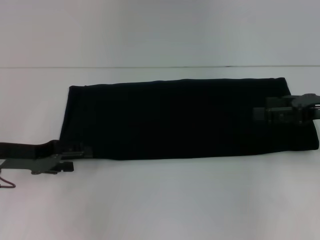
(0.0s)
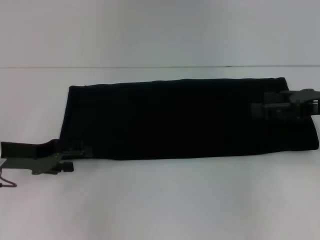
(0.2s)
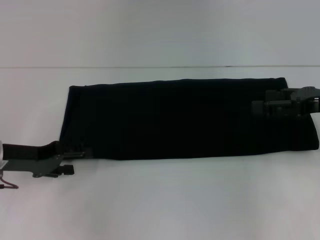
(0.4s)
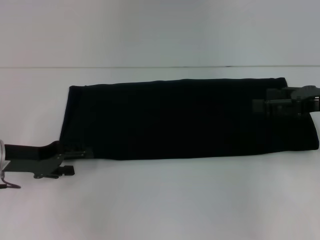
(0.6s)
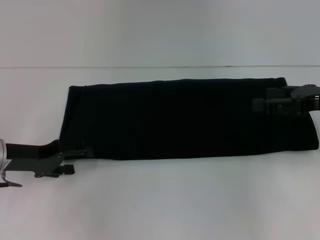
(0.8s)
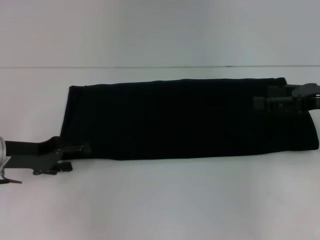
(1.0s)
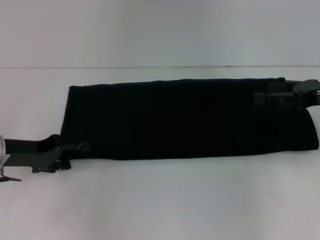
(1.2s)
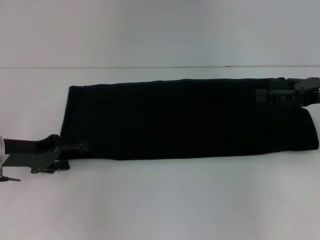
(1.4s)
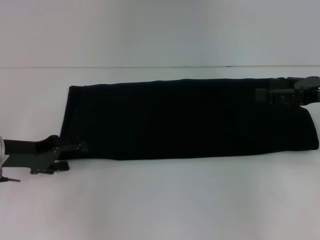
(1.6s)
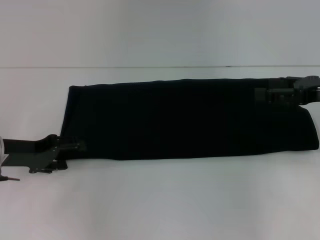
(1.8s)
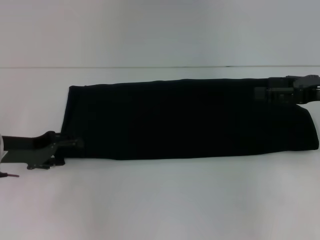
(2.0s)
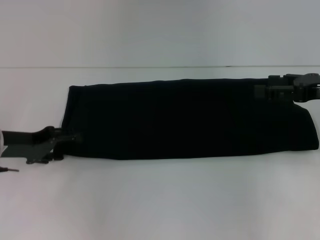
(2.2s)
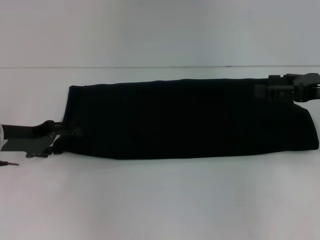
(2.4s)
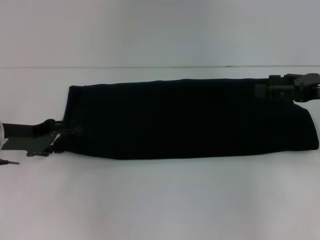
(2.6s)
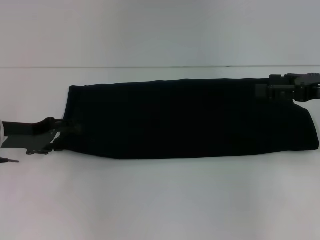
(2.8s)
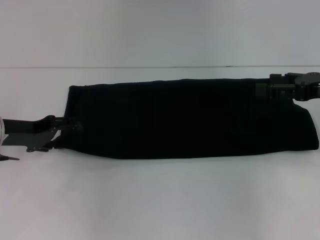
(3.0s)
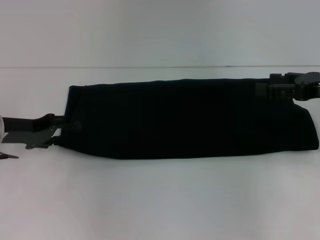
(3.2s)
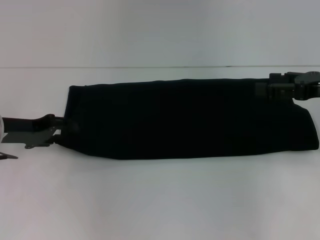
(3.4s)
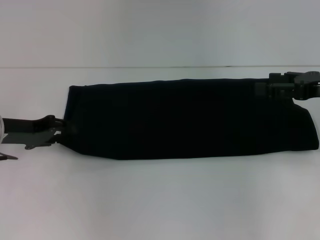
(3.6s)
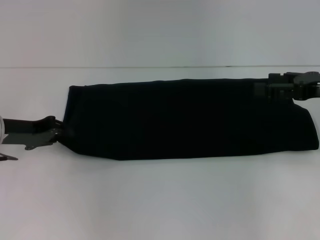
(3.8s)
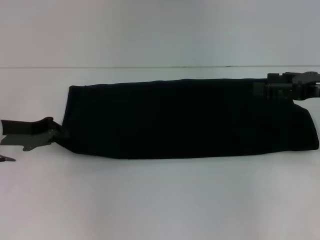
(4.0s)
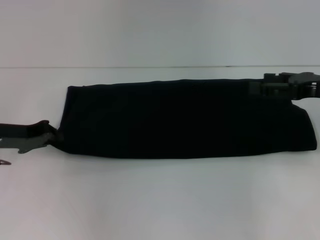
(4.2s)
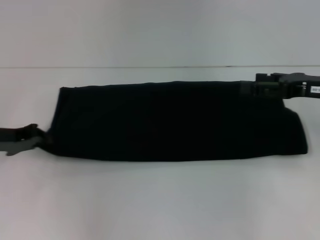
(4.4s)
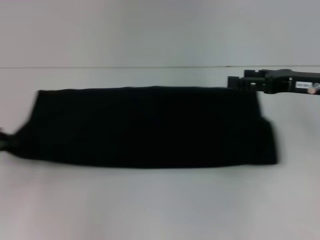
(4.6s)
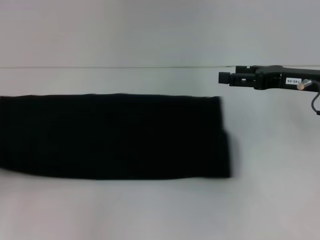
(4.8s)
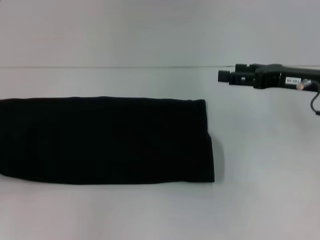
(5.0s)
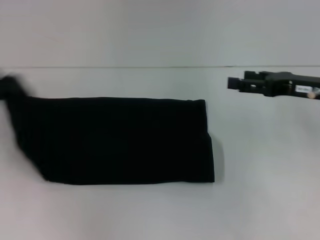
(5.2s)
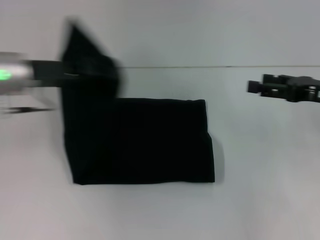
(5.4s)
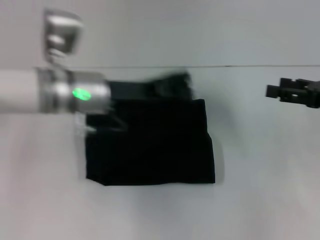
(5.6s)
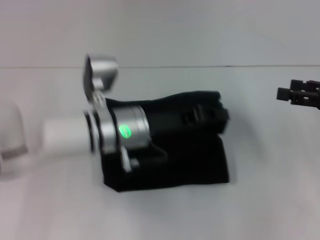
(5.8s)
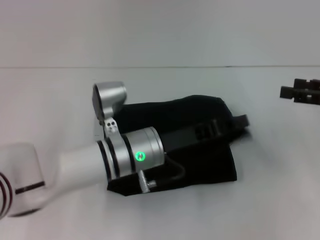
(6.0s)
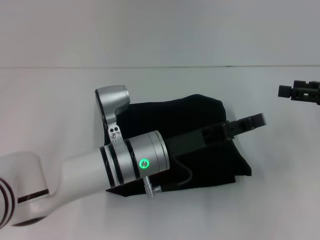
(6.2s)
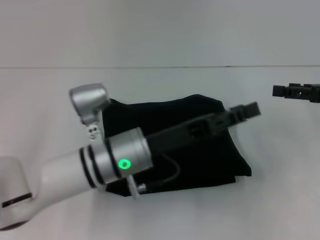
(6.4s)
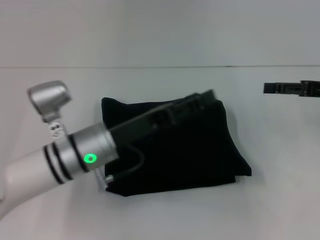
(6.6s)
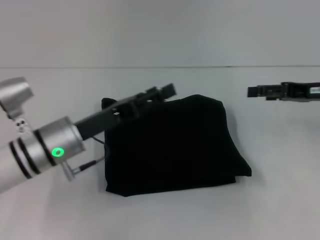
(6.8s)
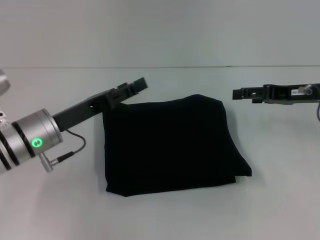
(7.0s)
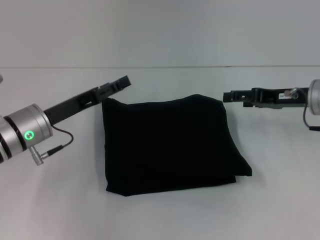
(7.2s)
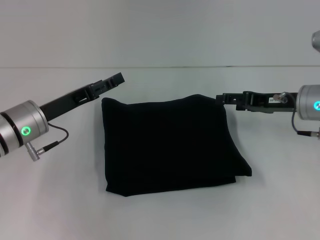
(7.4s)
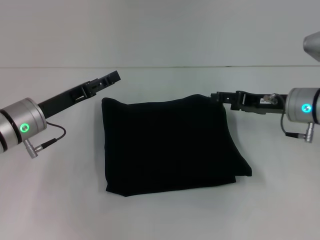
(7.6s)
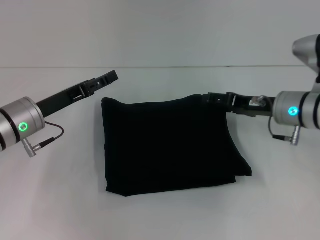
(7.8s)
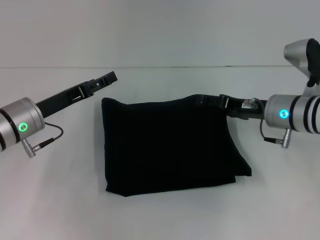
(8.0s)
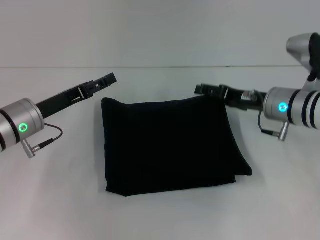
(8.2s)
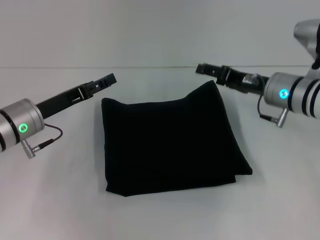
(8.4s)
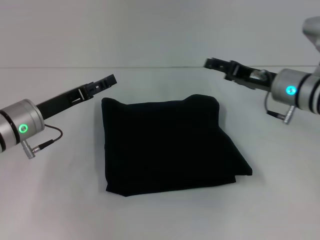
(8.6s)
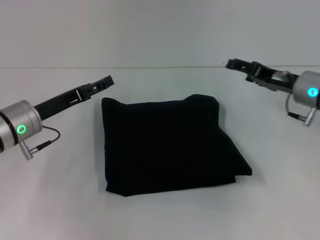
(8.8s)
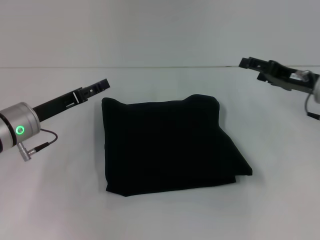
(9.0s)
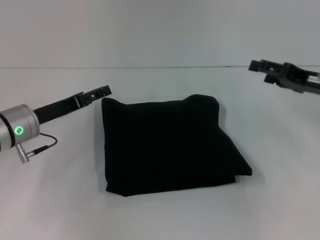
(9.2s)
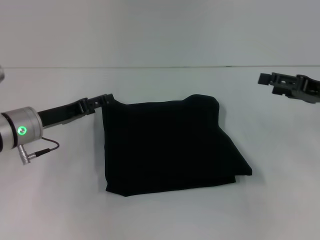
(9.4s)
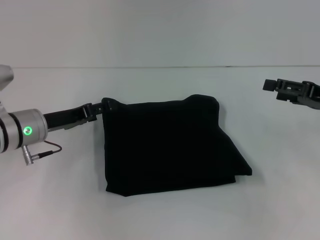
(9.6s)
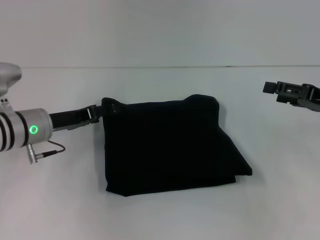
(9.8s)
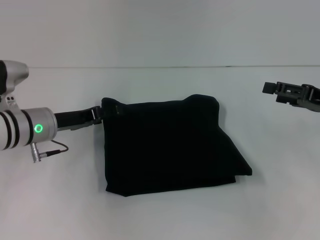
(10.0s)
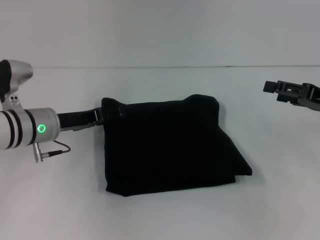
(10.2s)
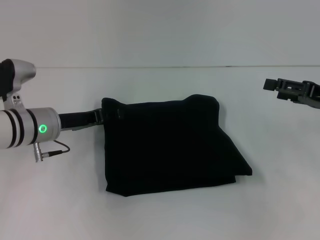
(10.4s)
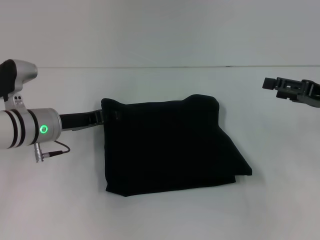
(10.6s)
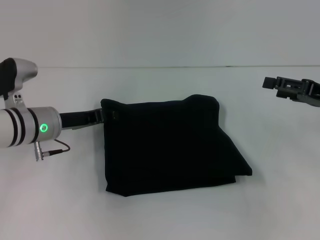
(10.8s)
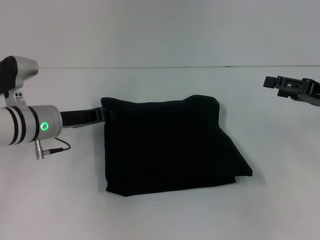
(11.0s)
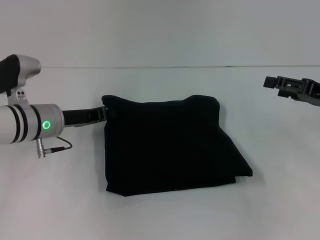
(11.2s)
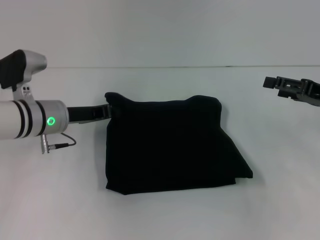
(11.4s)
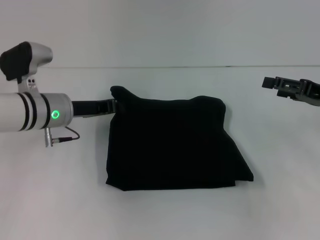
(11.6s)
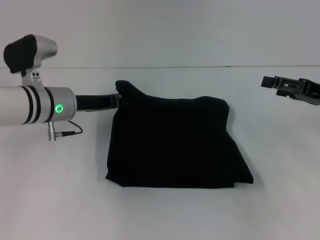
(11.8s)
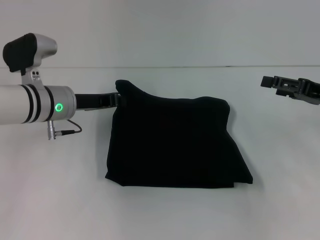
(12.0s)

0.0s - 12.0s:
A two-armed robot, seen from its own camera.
Step, 0.0s - 6.0s: Fold the clothes with your left hand.
0.0s - 3.0s: The grippers make only small movements.
3.0s - 4.4s: The left gripper closes its fingers.
4.4s - 6.0s: The right gripper heads to the right, covering roughly 5 cm; the left gripper moves to the right, approximately 25 cm.
6.0s - 7.6s: The right gripper moves to the left, forward and downward, approximately 15 cm, while the left gripper heads to the left, covering approximately 15 cm, and opens up.
7.6s - 9.0s: The grippers move only a little.
9.0s - 10.4s: The right gripper travels to the right by roughly 5 cm.
10.4s - 12.0s: The left gripper closes.

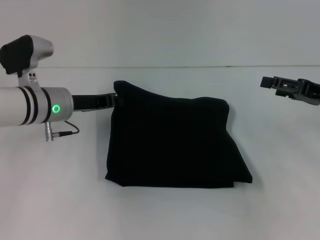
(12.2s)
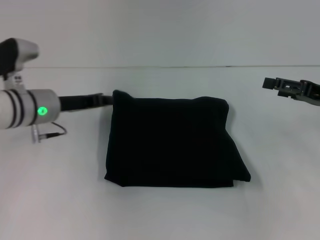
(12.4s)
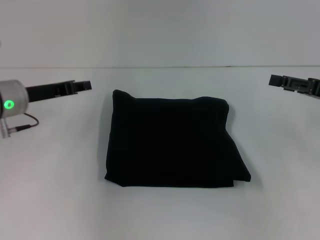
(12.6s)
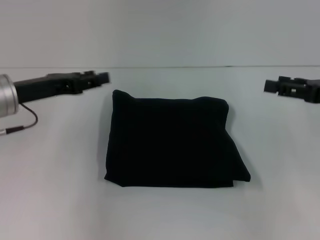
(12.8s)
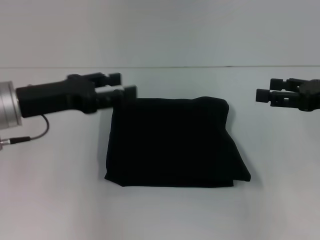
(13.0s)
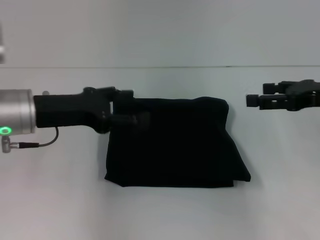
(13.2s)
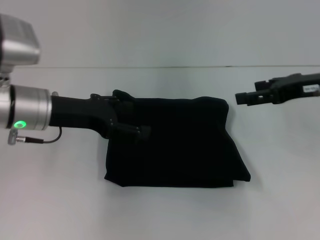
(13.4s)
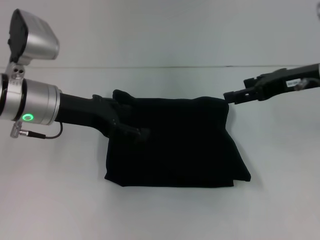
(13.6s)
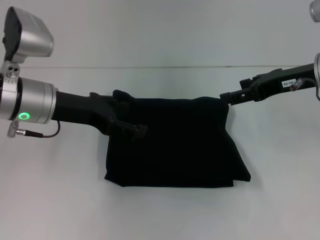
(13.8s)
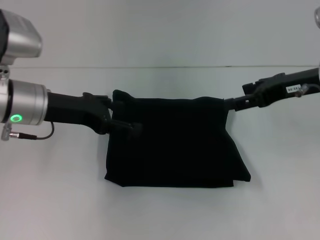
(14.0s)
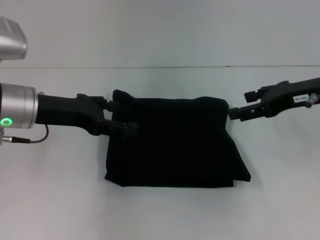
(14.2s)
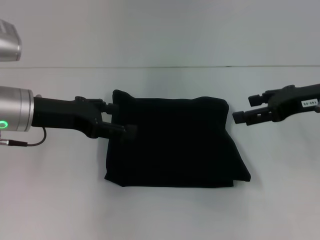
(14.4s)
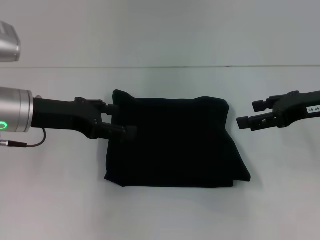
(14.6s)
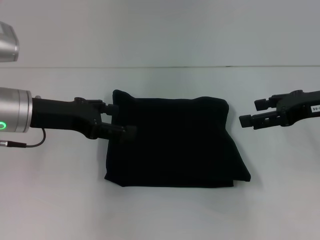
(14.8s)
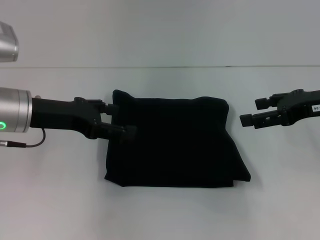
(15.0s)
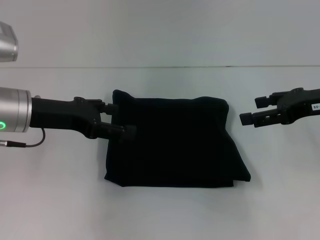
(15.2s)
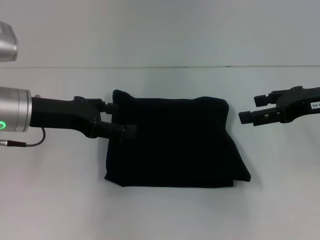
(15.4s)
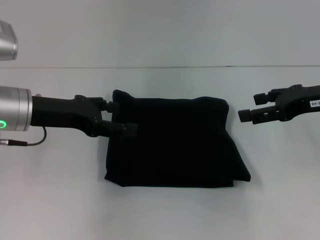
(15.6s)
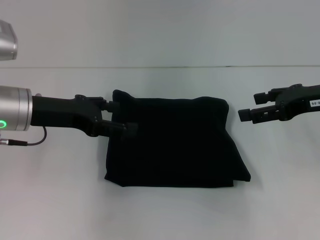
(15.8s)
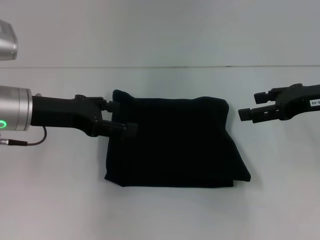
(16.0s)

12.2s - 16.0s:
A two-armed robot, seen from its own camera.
12.2s - 13.4s: The left gripper is displaced upward and backward by roughly 10 cm, and opens up. The right gripper shifts approximately 10 cm upward and to the left.
13.4s - 14.8s: The grippers move only a little.
14.8s - 16.0s: The two grippers keep their place.

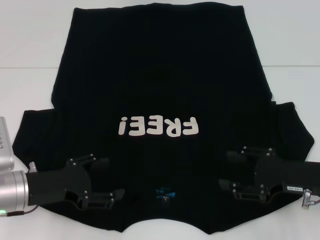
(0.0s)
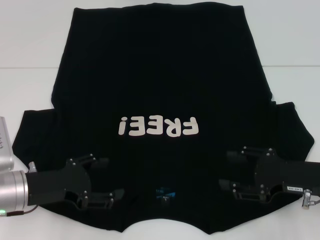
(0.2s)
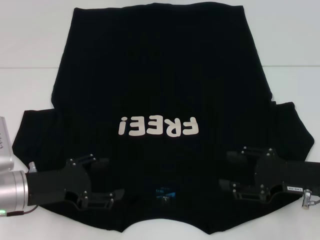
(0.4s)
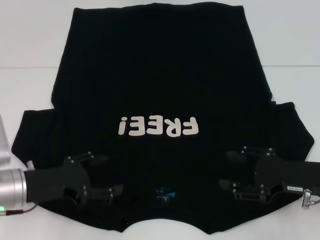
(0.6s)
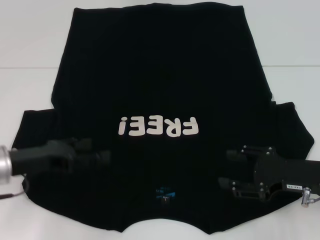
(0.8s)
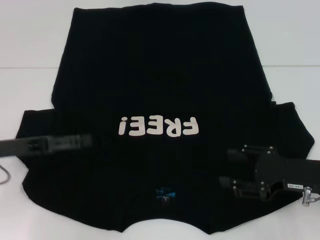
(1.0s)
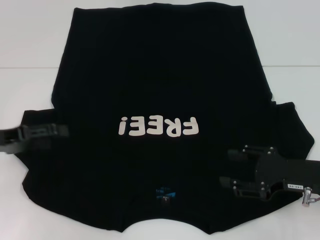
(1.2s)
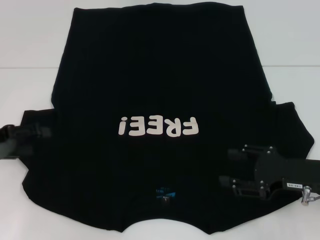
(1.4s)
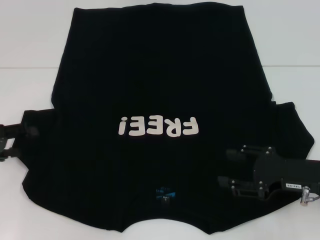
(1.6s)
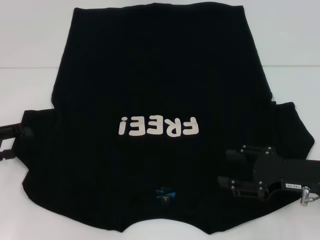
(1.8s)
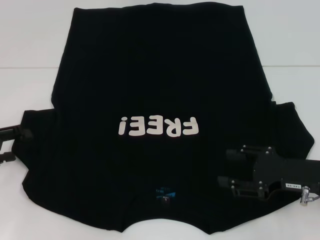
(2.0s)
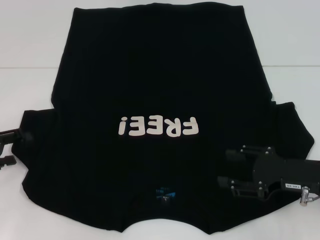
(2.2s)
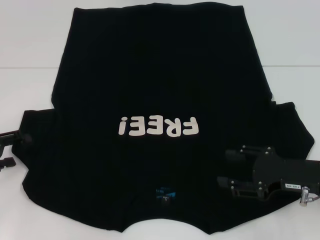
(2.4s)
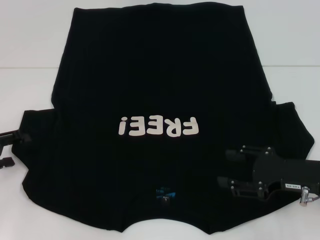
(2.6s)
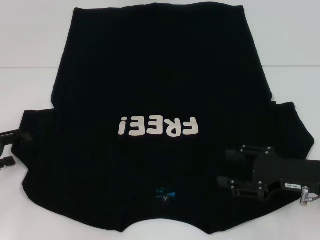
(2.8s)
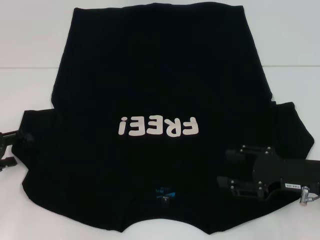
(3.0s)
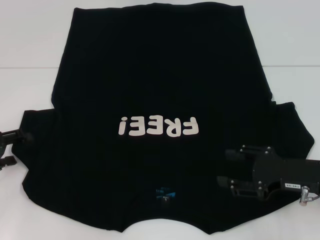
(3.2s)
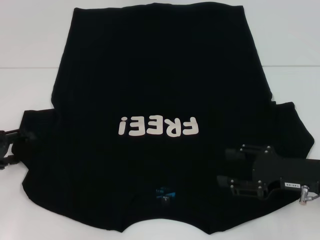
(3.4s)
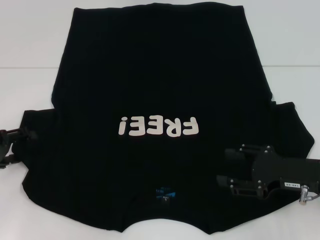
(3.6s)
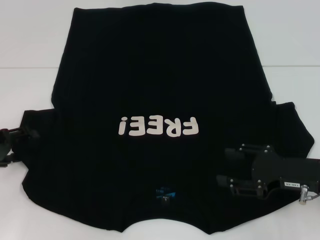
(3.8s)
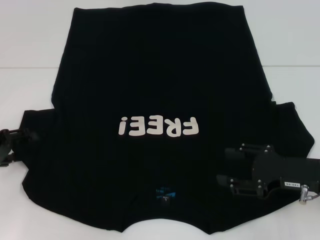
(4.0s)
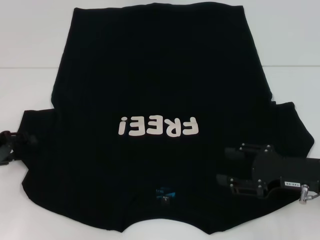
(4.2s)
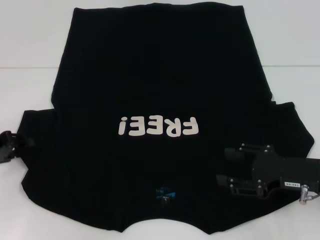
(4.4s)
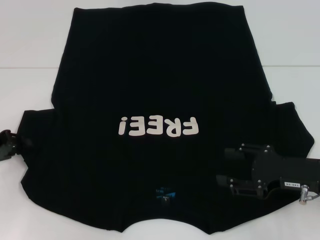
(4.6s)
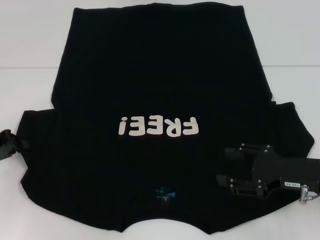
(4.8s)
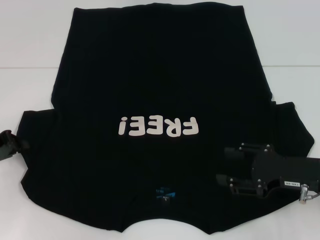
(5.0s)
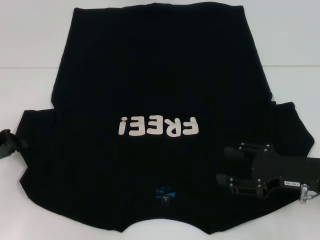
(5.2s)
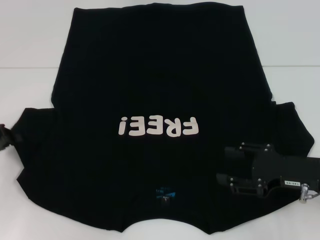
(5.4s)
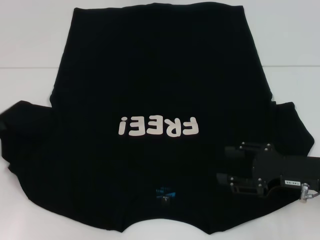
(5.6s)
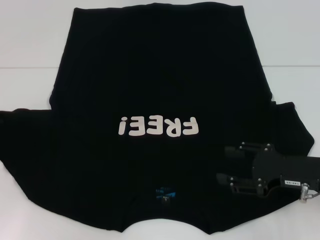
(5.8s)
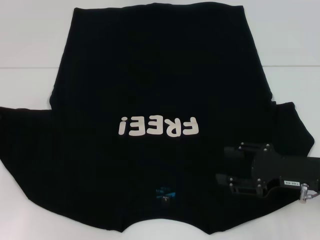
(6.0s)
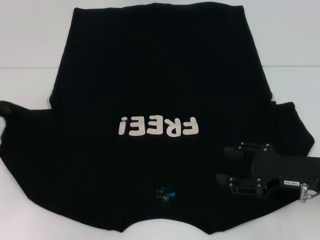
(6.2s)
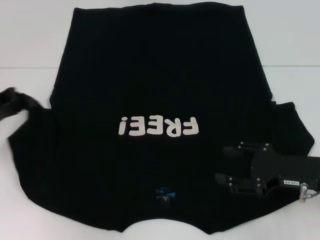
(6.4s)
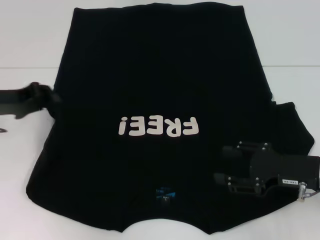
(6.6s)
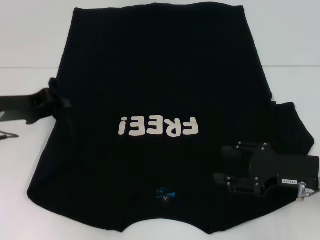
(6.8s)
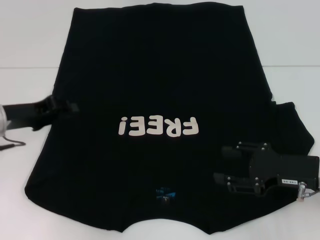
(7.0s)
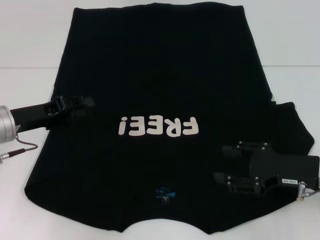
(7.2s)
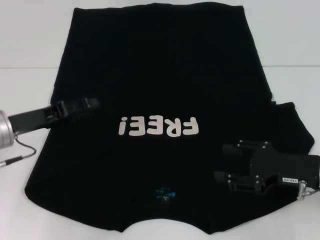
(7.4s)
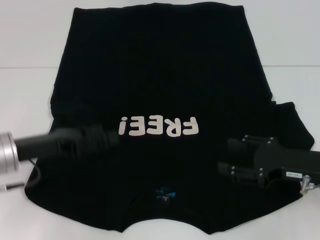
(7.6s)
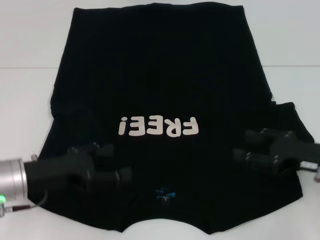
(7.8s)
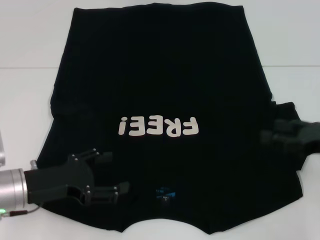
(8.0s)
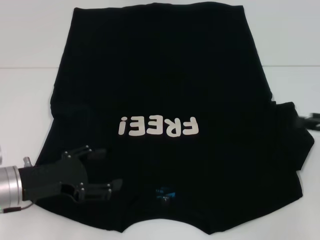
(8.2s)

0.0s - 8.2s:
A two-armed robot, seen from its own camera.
Step, 0.0s - 6.8s: Fold the bottom left sleeve with your left hand.
0.0s - 1.6s: The left gripper shifts about 10 cm to the left.
1.6s - 3.2s: There are only small adjustments of the grippers.
3.2s - 5.0s: The left gripper closes up.
5.0s - 6.6s: The left gripper shifts approximately 5 cm upward.
6.6s - 8.2s: The right gripper shifts approximately 10 cm to the right and upward; the left gripper goes some 15 cm backward, downward and to the right, and opens.
